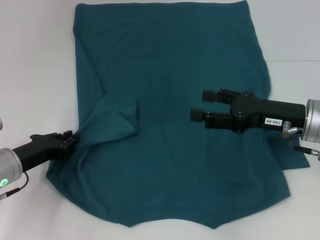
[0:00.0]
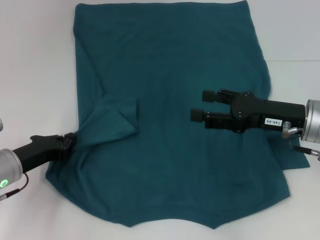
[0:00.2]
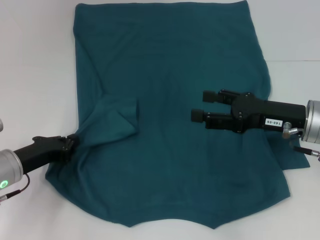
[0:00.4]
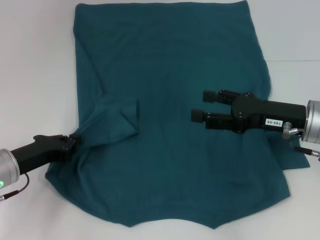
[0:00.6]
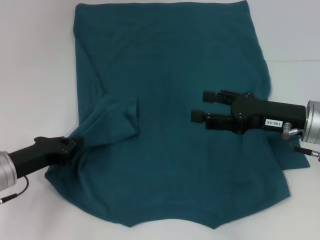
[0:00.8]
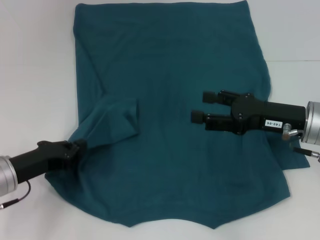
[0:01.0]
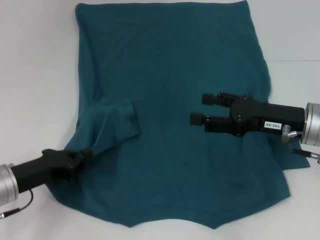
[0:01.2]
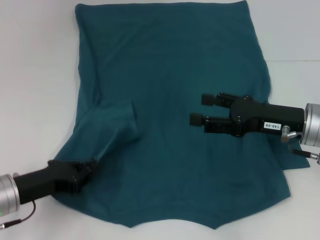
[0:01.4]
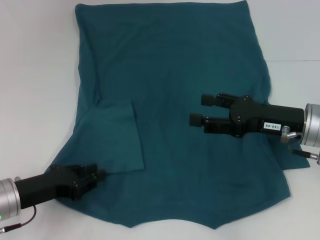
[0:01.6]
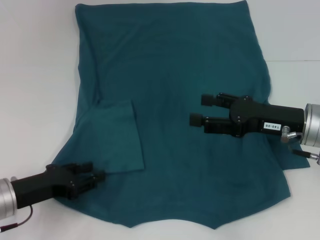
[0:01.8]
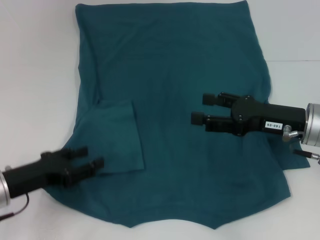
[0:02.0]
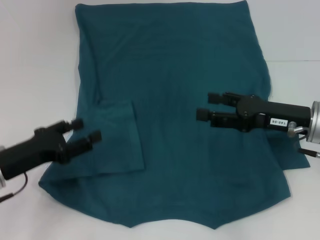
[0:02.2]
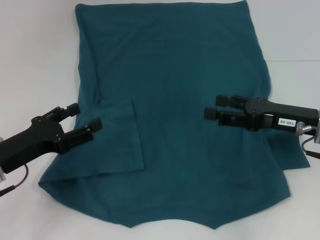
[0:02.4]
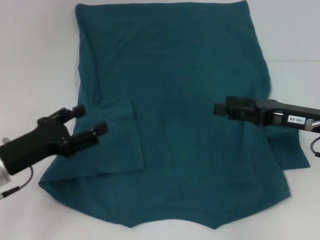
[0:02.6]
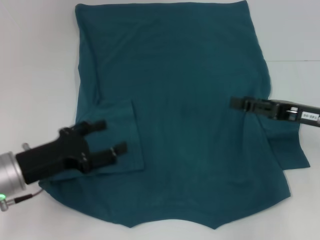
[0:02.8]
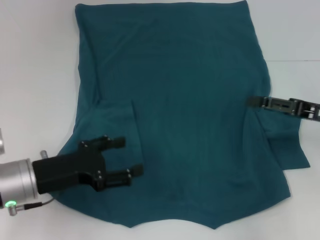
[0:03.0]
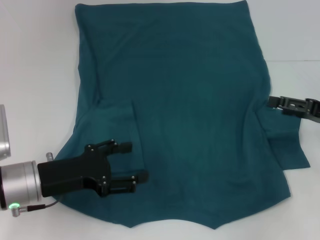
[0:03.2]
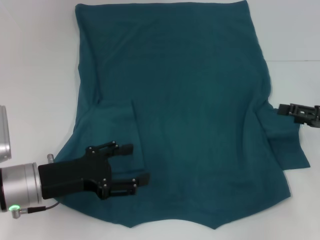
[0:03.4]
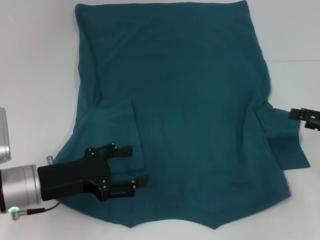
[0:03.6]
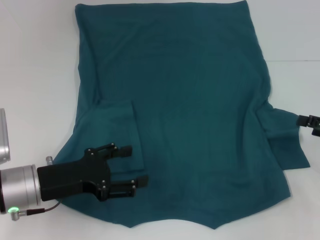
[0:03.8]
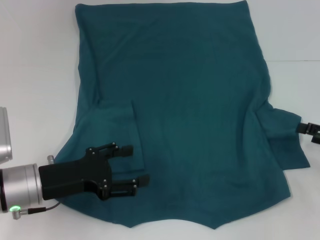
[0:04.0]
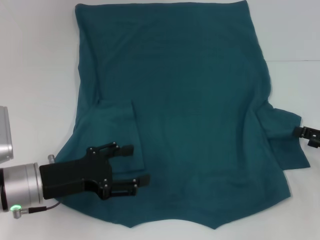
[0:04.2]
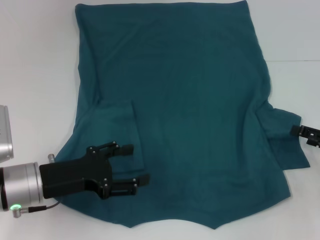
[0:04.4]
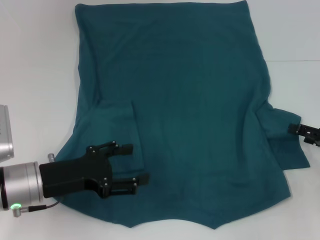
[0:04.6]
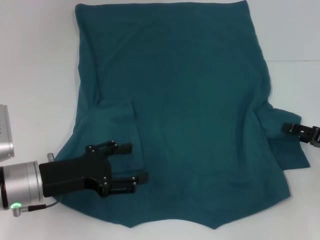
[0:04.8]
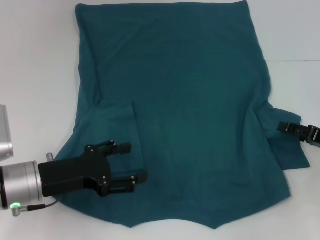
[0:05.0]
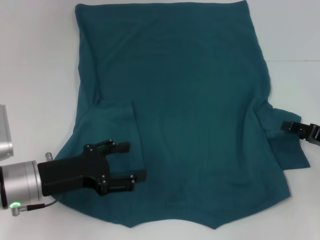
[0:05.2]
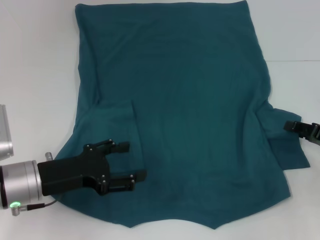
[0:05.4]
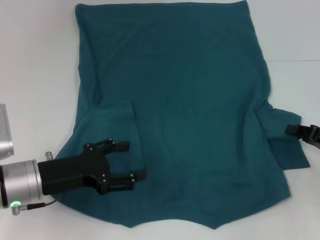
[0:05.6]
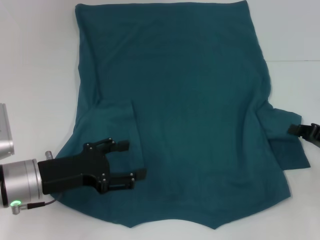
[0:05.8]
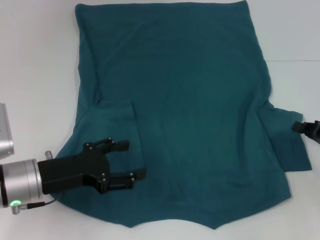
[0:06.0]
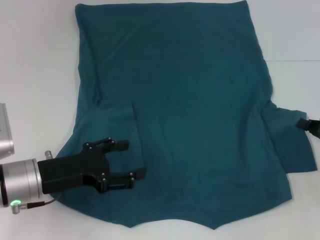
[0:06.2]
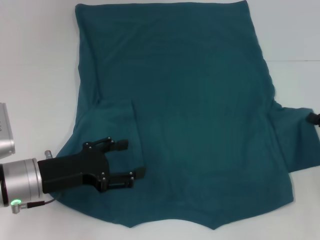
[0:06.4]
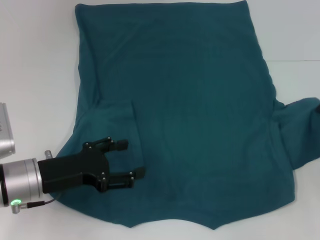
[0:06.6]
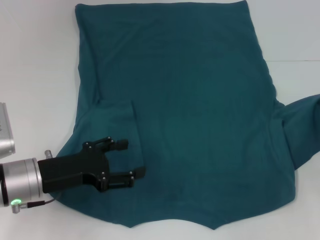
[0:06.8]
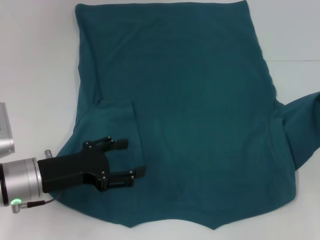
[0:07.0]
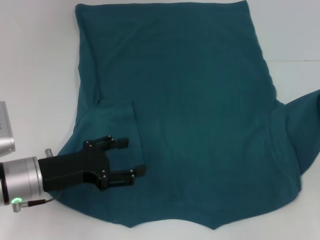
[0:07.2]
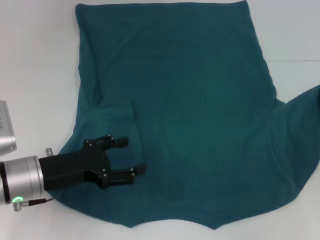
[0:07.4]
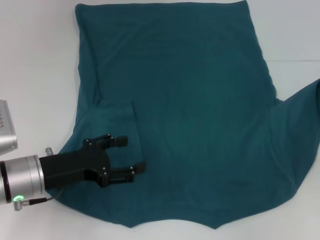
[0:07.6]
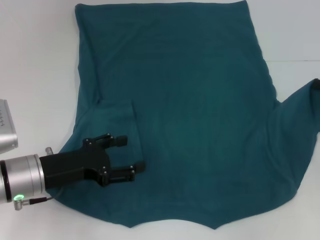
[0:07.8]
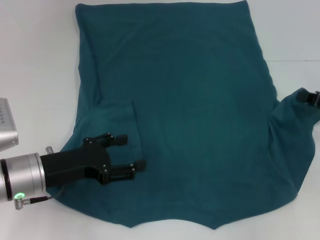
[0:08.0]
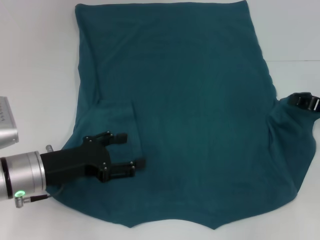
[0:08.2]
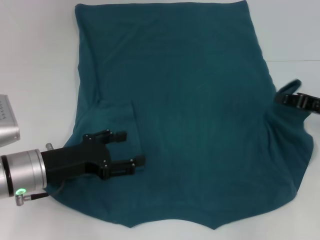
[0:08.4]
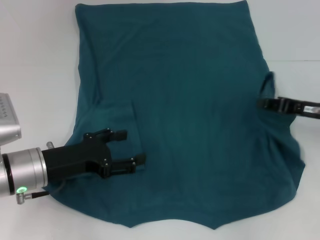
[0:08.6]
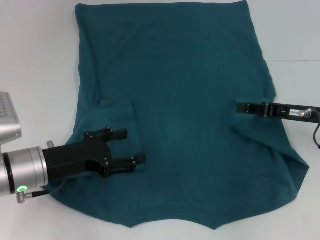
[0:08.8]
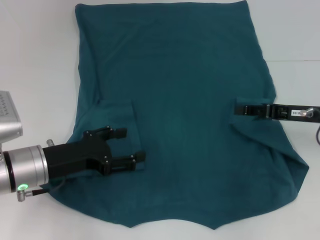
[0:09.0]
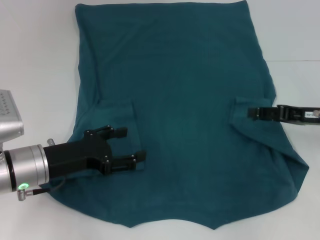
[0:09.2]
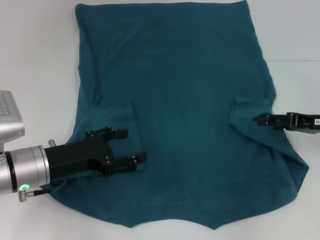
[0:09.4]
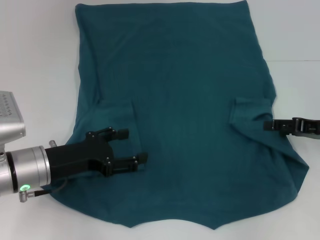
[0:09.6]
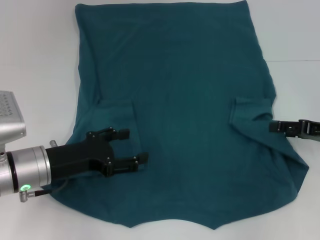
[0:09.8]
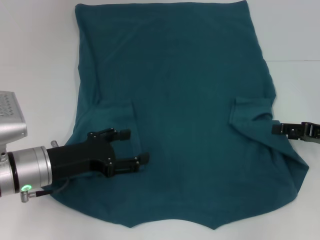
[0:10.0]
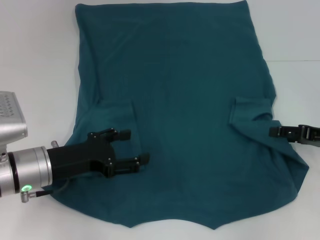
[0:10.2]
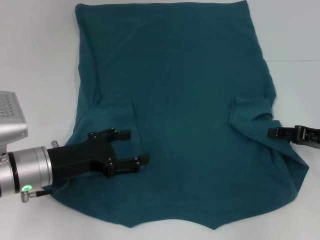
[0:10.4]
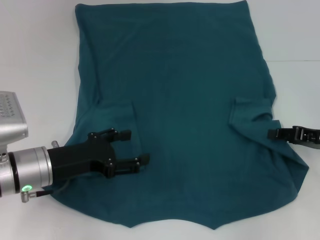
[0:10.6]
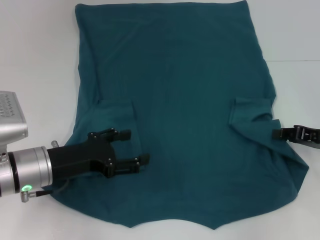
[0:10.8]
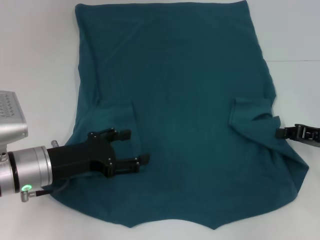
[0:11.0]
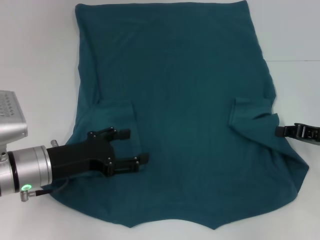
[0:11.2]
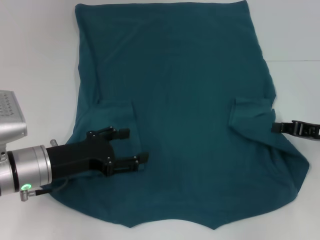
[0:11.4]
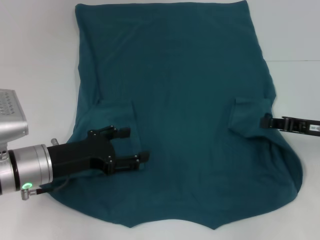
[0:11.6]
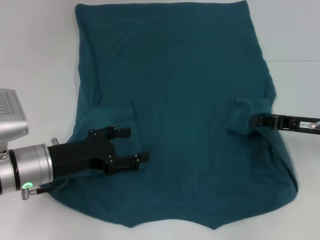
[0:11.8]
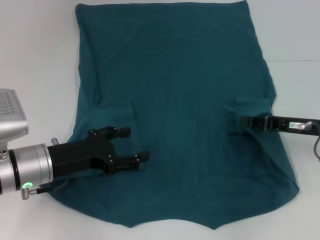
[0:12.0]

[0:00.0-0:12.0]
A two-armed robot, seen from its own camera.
0:00.0 to 0:01.6: The left gripper closes its fingers.
0:01.6 to 0:03.0: The left gripper opens. Meanwhile the right gripper moves to the right, approximately 10 cm.
0:03.0 to 0:04.4: The right gripper goes about 10 cm downward and to the right.
0:04.4 to 0:06.0: The right gripper closes.
0:06.0 to 0:07.6: The right gripper goes approximately 5 cm forward.
0:07.6 to 0:09.0: The right gripper goes roughly 10 cm to the left.
0:09.0 to 0:10.4: The right gripper changes place by some 5 cm, and opens up.
0:10.4 to 0:12.0: The right gripper ends up some 5 cm from where it was, and closes its fingers.

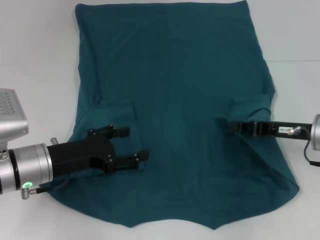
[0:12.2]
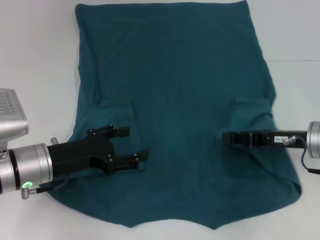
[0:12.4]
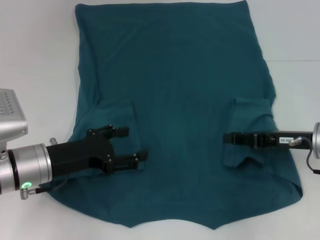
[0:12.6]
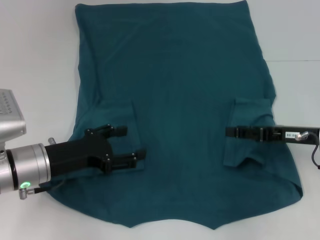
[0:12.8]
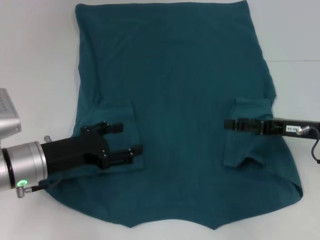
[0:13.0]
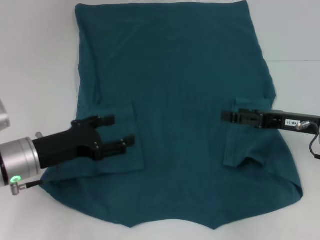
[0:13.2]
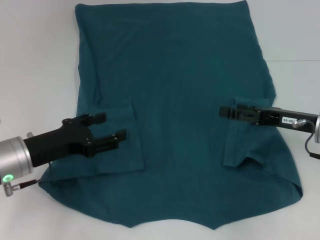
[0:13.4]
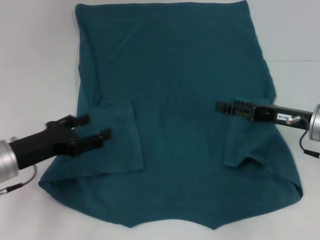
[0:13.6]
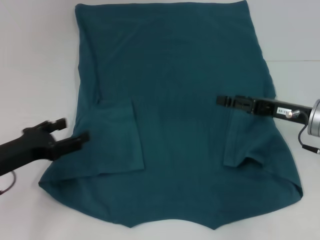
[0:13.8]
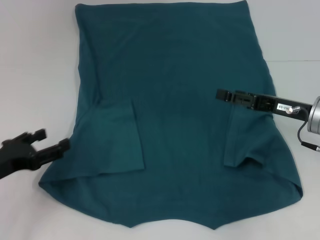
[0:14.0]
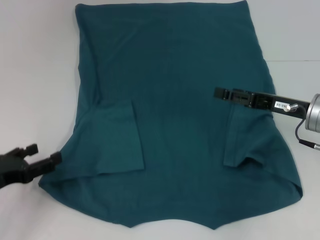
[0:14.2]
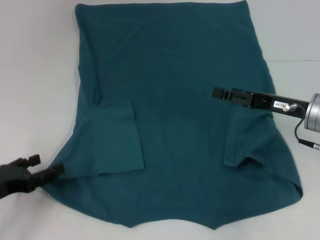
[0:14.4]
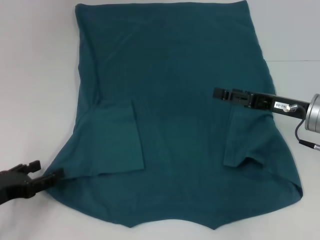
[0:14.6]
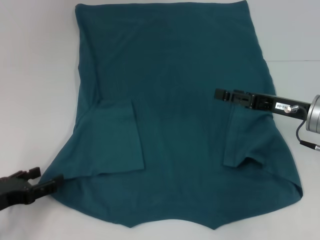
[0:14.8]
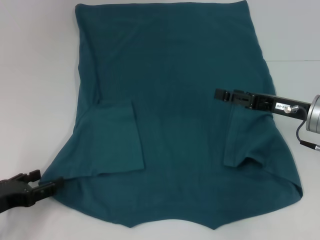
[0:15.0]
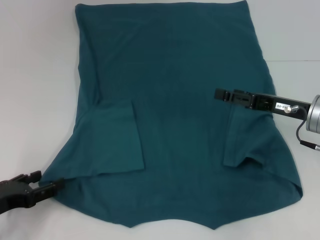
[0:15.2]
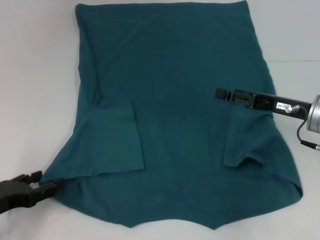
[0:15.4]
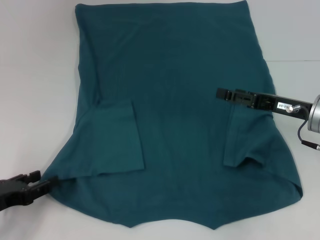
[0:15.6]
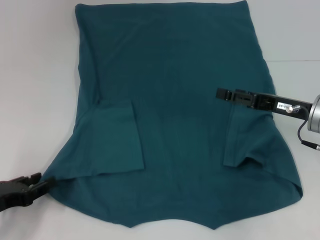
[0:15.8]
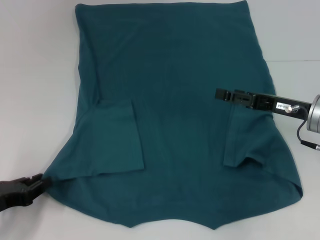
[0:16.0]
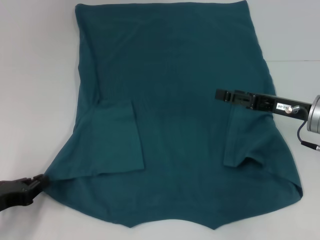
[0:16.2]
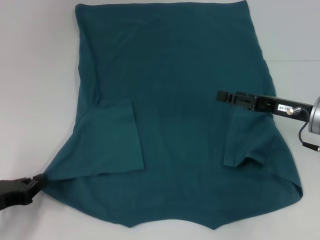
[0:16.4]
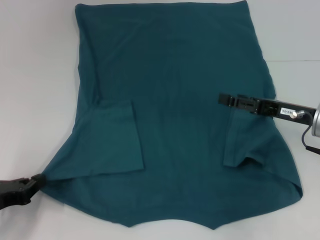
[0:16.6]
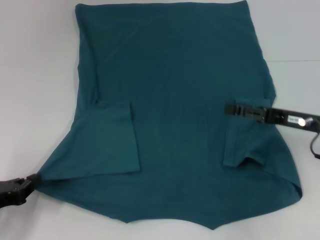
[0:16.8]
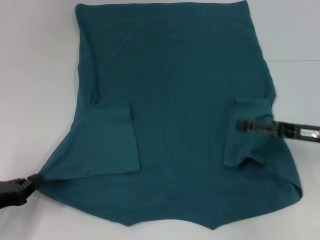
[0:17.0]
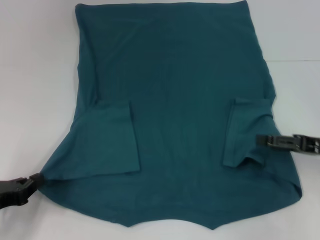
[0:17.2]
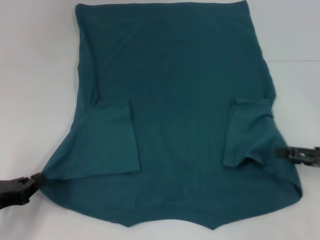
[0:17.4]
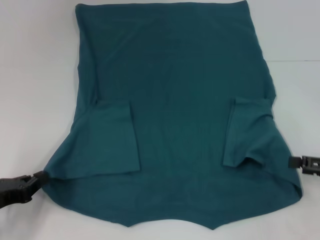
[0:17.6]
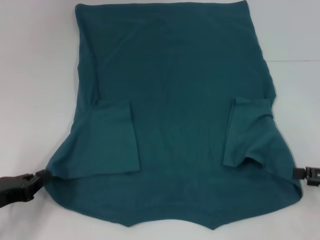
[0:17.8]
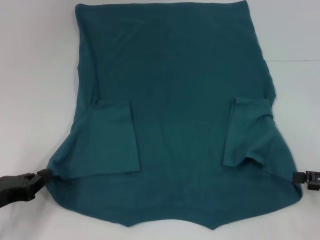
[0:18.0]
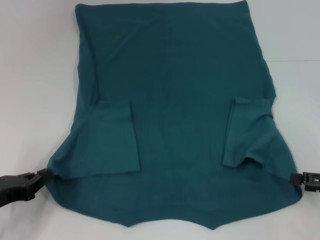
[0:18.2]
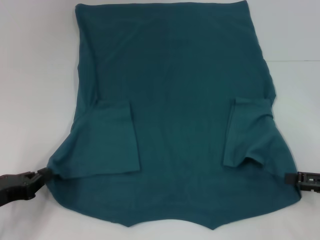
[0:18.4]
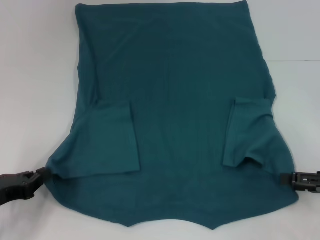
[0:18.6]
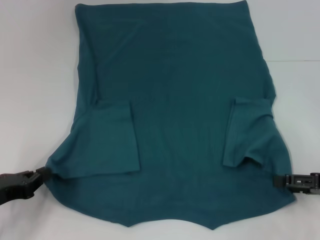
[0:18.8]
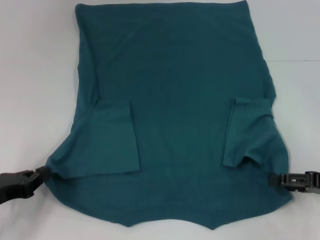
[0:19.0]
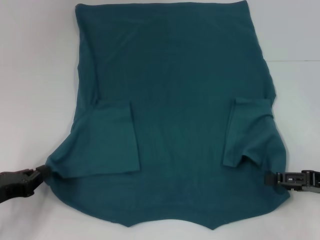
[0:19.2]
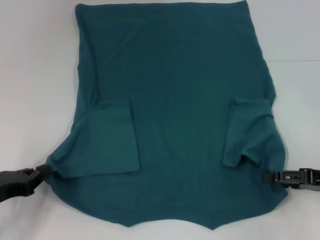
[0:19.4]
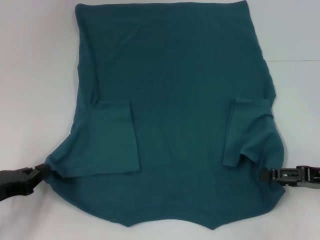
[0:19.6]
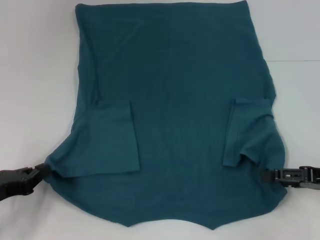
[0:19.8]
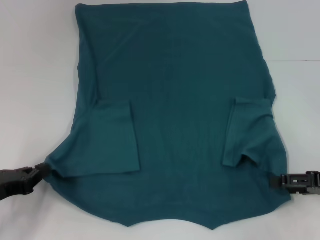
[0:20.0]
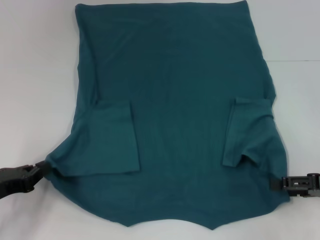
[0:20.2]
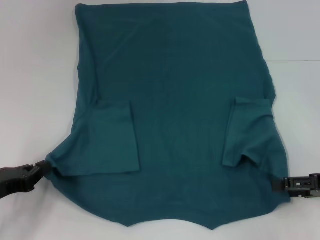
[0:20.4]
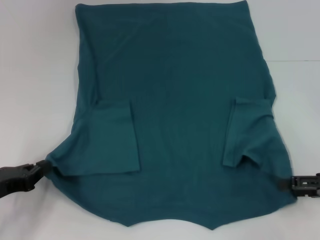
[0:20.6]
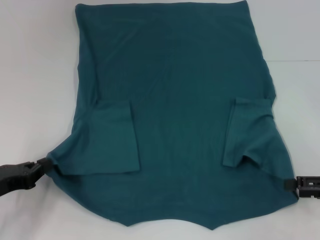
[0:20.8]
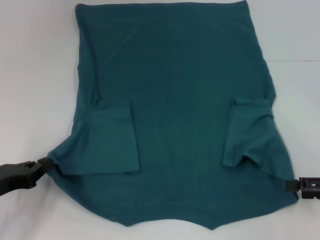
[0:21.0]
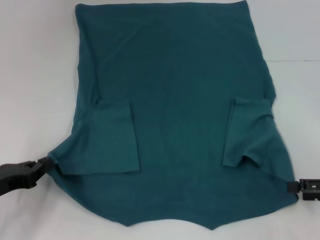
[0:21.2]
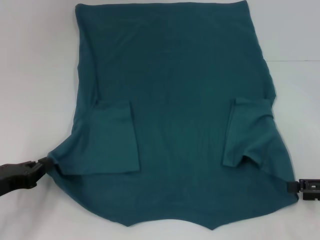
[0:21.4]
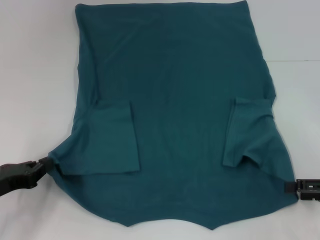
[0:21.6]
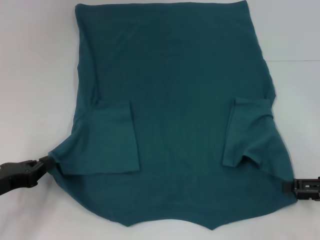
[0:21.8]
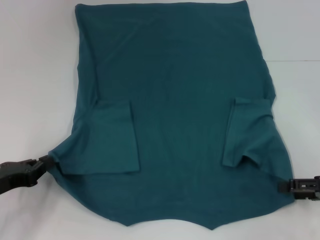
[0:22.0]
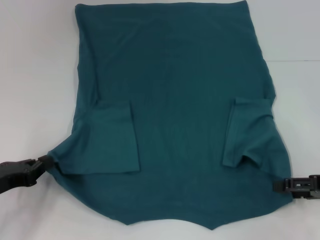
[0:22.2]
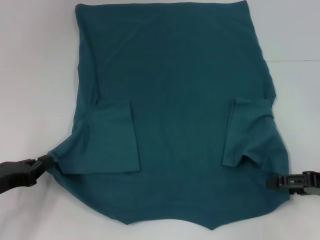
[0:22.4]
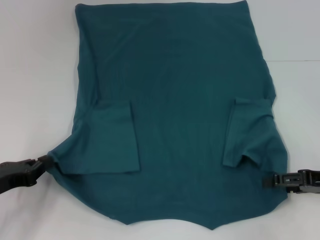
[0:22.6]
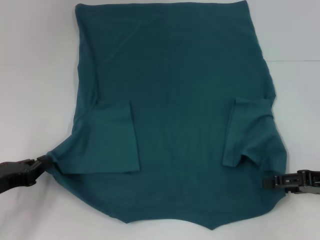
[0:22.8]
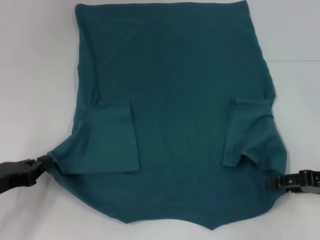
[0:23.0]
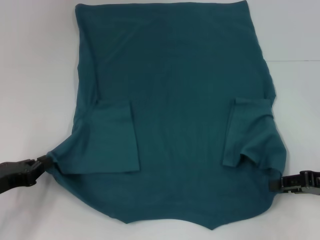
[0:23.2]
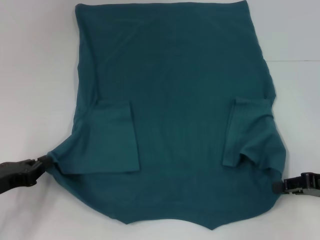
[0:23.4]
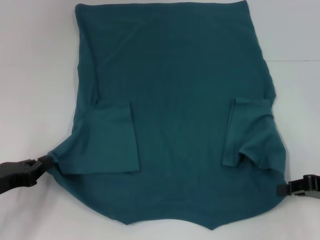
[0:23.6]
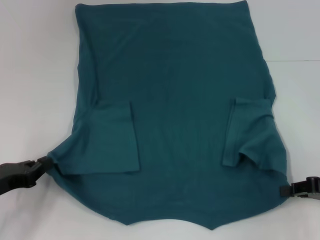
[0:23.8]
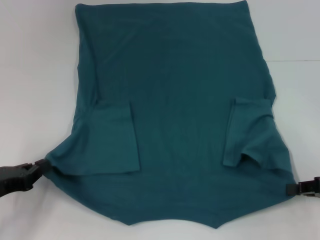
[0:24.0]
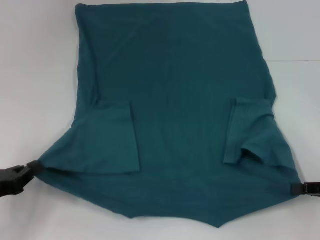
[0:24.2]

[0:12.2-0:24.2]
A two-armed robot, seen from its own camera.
Step, 0:13.0 to 0:16.4: Grab the bottom left corner with your left hand.
Step, 0:16.6 to 0:23.6: Grab the bottom right corner with your right hand.
0:12.2 to 0:13.8: The left gripper shifts some 5 cm to the left; the right gripper opens up.
0:13.8 to 0:15.2: The left gripper shifts roughly 5 cm backward.
0:15.2 to 0:16.6: The left gripper closes.
0:16.6 to 0:18.2: The right gripper travels to the right and backward by some 15 cm.
0:18.2 to 0:22.6: The grippers move only a little.
0:22.6 to 0:24.2: The right gripper closes its fingers.
